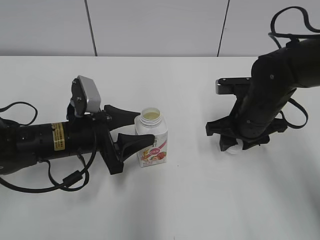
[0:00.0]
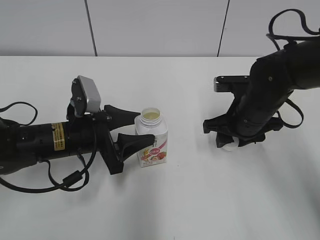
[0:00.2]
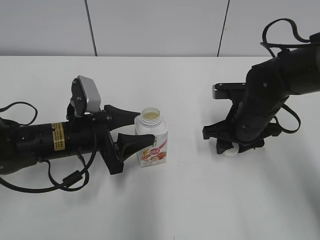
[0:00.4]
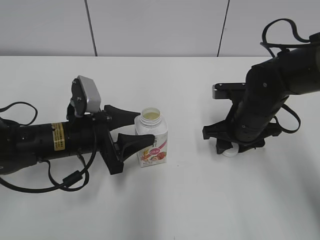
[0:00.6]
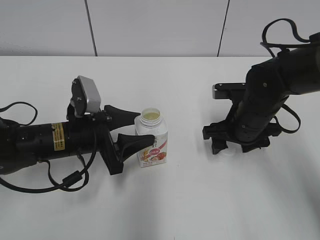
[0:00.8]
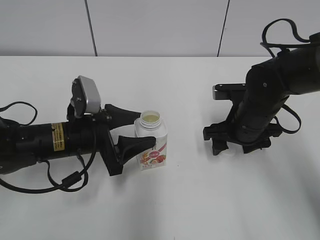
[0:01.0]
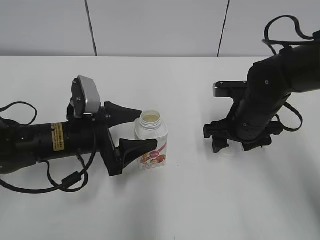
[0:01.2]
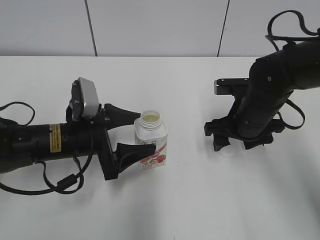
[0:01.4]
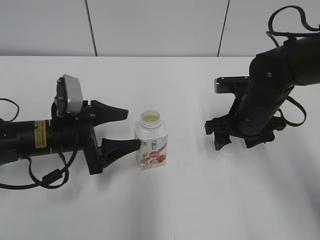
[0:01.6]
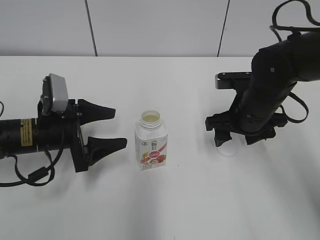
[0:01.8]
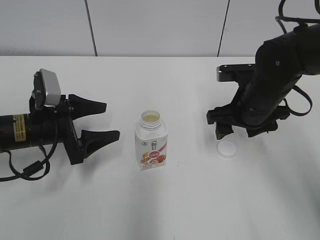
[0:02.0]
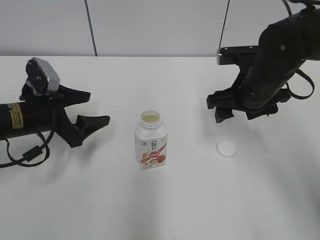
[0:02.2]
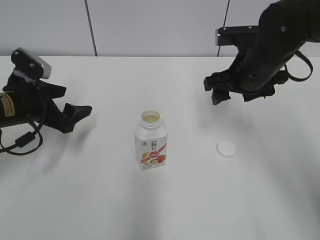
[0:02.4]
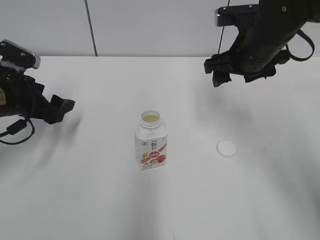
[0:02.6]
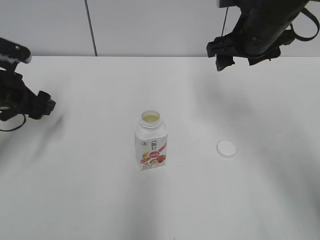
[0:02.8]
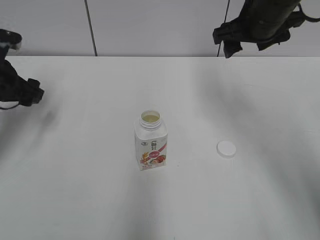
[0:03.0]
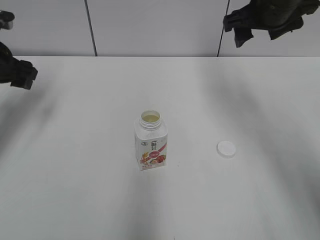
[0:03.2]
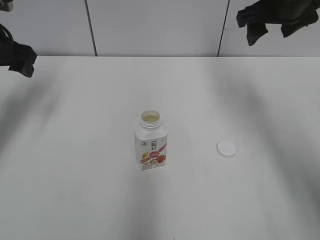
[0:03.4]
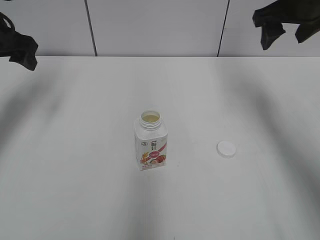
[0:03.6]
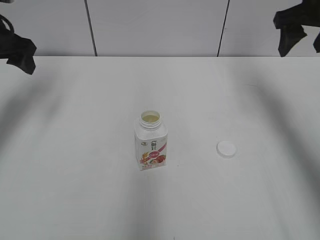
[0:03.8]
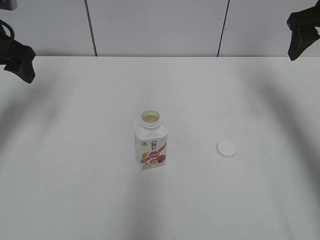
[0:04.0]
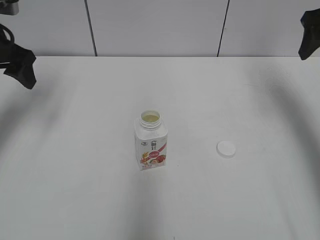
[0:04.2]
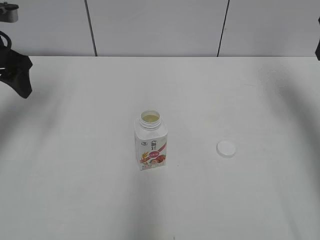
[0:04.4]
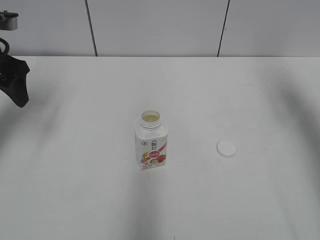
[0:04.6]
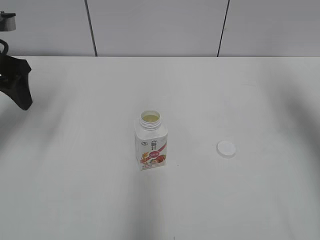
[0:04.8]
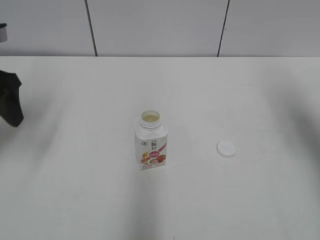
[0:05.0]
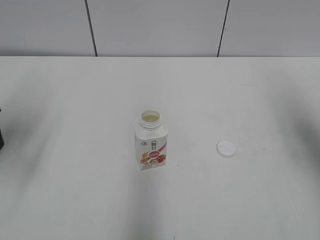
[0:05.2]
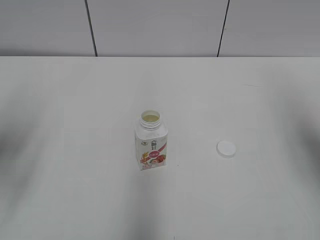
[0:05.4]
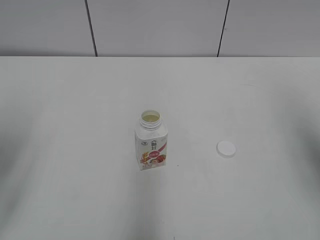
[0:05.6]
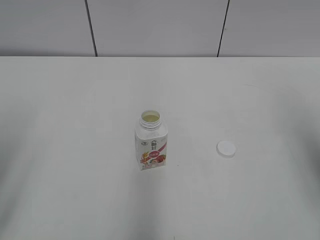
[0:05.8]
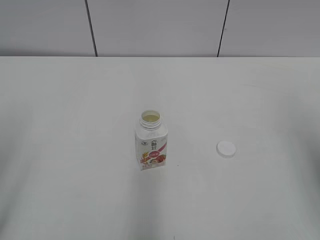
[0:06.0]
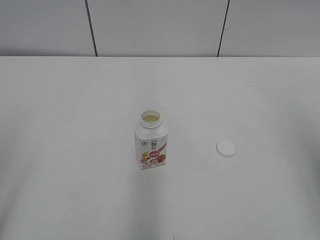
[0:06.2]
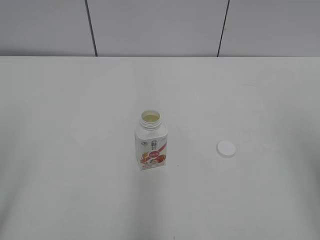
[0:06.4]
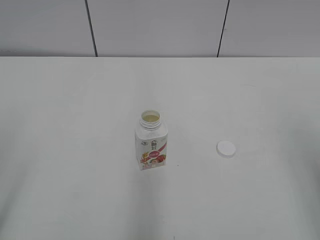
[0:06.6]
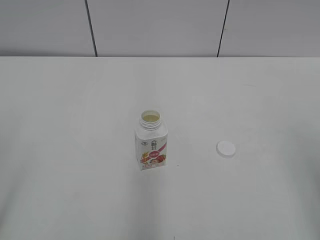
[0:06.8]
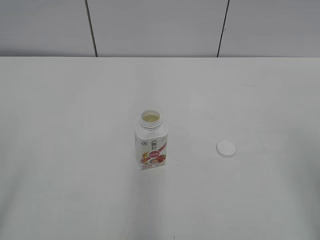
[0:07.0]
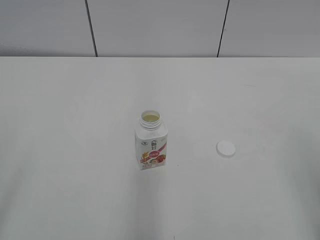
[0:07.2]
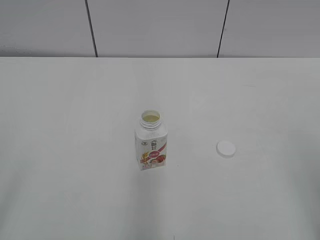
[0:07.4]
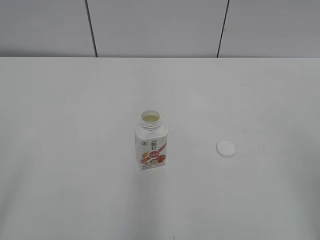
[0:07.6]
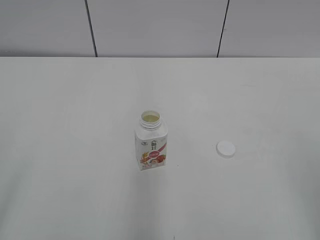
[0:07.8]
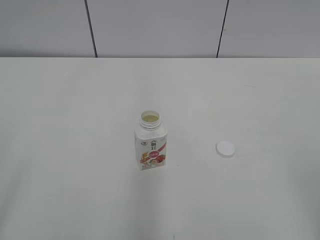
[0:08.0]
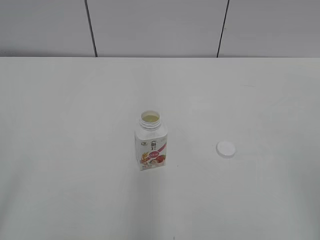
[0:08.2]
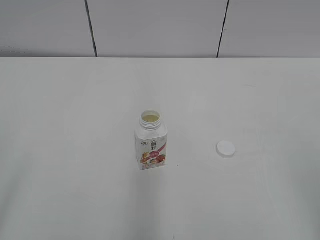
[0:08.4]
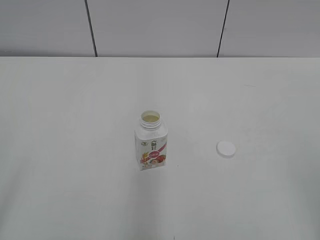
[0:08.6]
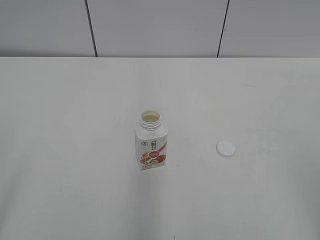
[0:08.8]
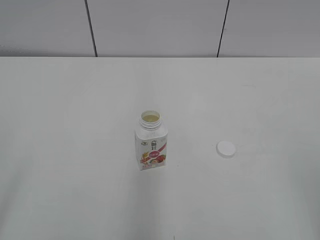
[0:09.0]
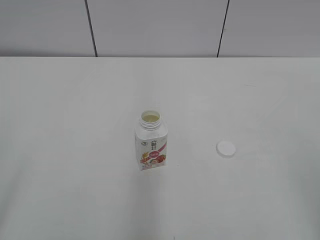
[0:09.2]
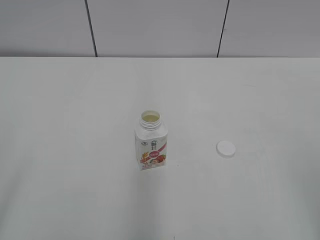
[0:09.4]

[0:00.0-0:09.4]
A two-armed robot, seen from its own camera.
0:00.0 to 0:01.6: The right gripper opens its fingers. The left gripper opens.
0:01.6 to 0:03.2: The left gripper travels to the left, upward and forward by about 20 cm. The right gripper moves upward and forward, some 15 cm.
0:03.2 to 0:04.8: The left gripper ends up some 5 cm from where it was, while the right gripper shifts roughly 15 cm to the right.
0:04.8 to 0:06.2: The grippers both shift backward by approximately 25 cm.
